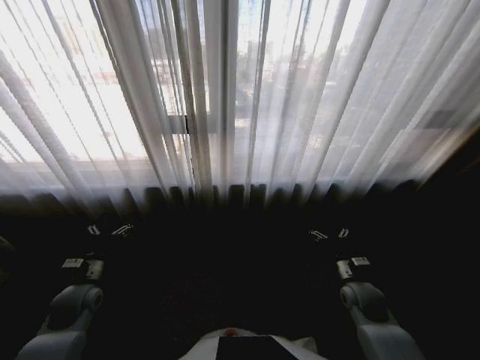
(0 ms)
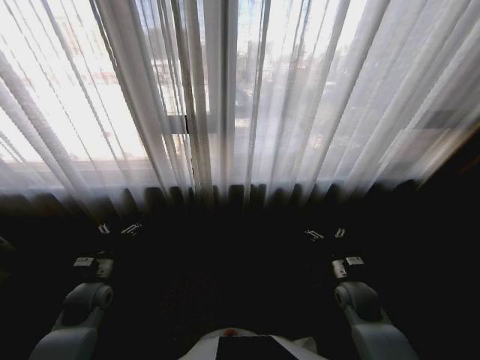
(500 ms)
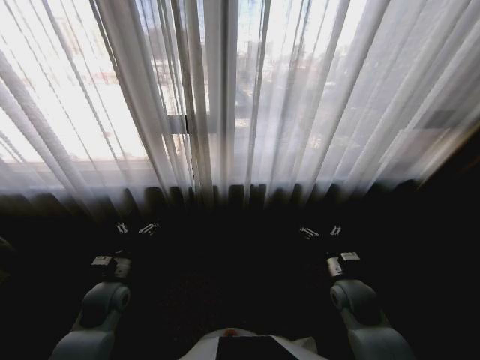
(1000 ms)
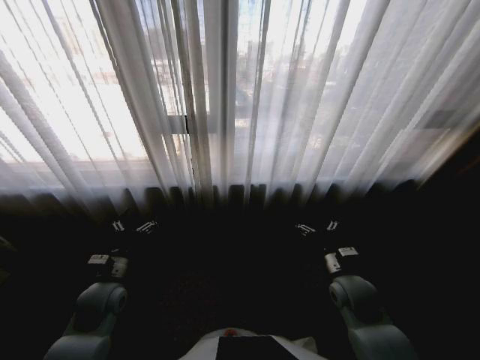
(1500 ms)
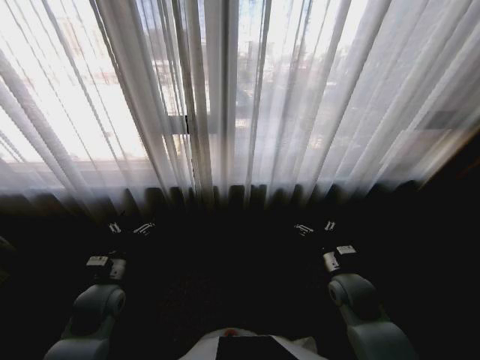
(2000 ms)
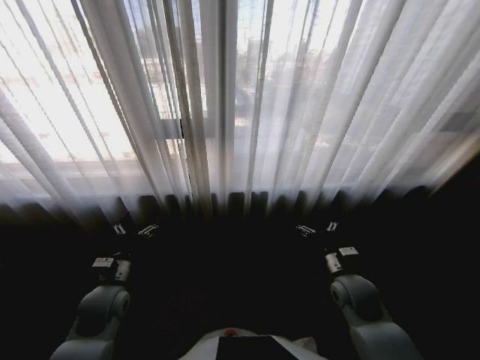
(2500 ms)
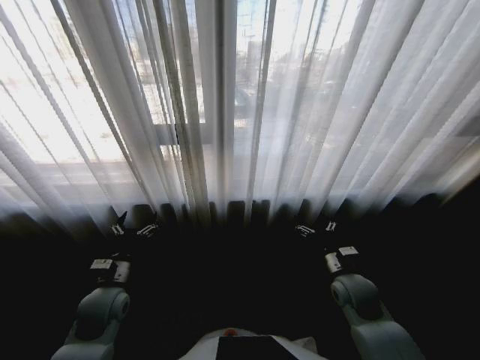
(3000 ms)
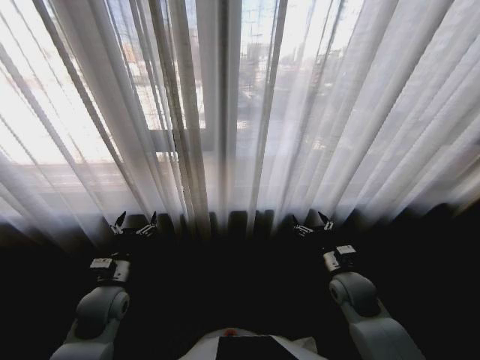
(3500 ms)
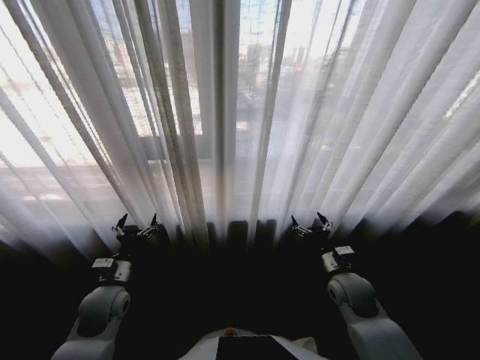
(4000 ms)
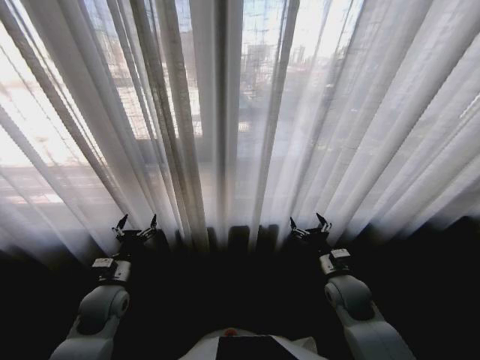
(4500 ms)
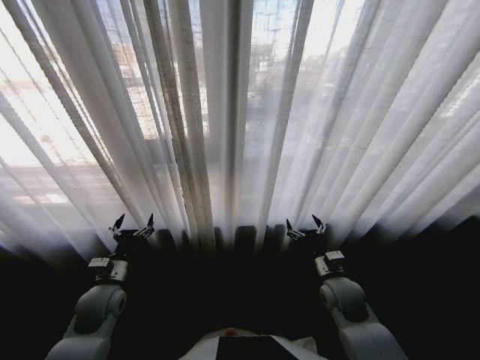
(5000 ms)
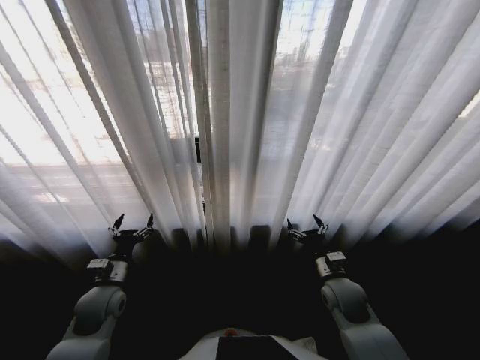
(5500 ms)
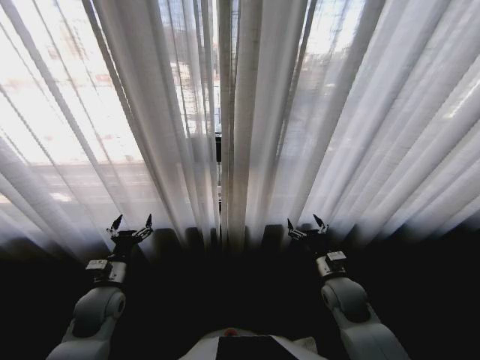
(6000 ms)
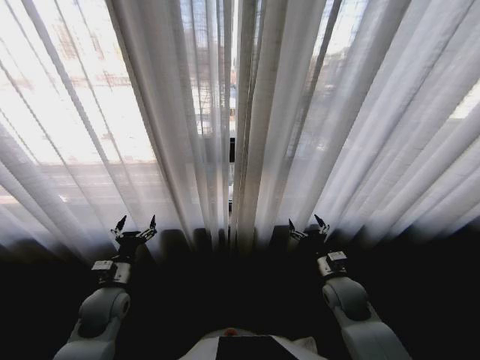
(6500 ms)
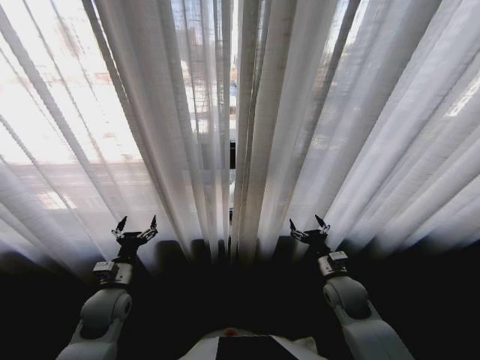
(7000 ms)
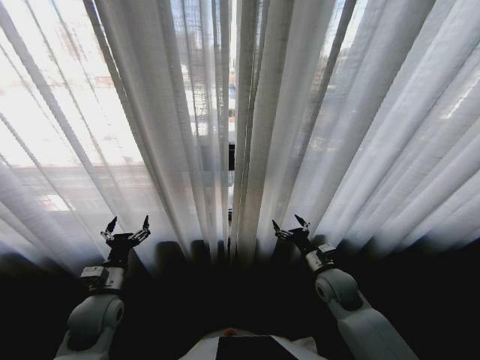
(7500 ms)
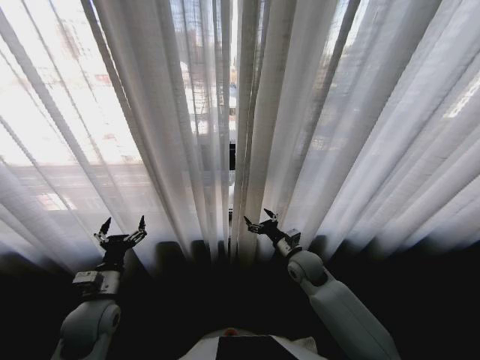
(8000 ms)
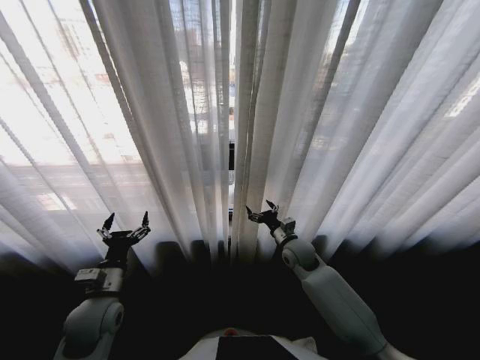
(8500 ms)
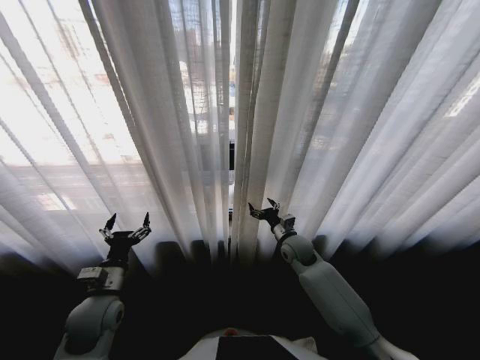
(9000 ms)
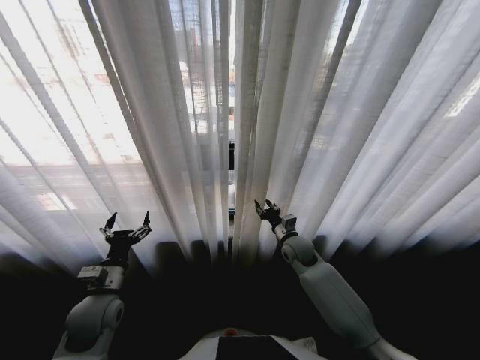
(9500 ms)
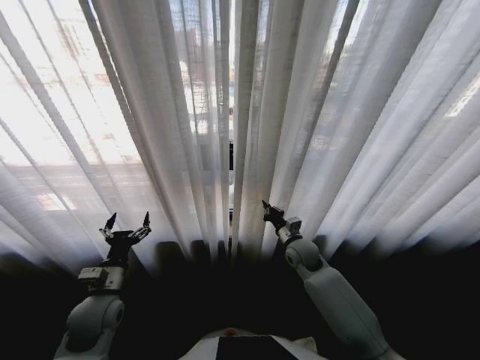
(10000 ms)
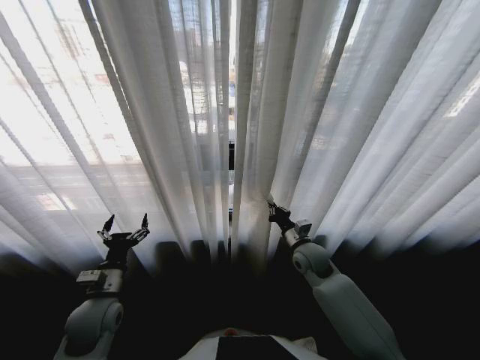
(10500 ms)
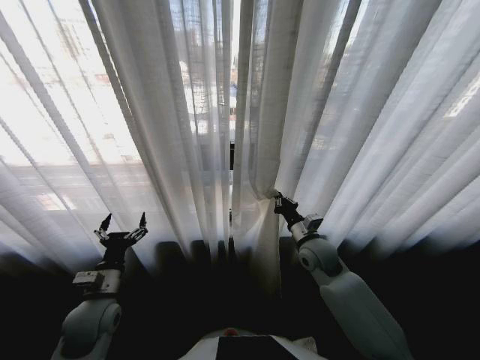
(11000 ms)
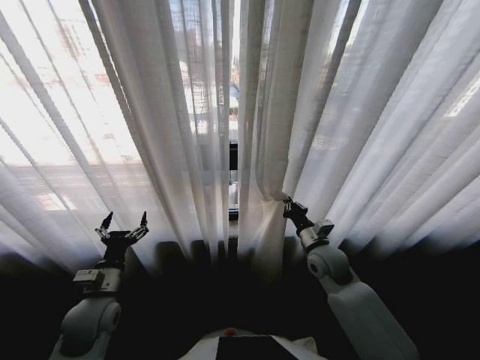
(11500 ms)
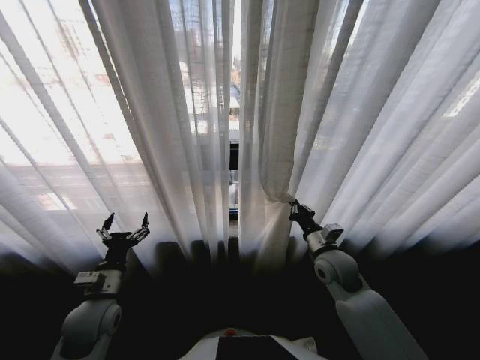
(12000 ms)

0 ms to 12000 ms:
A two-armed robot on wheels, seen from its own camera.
Task of the whole recording: Open the curtains by pulling them apart, changing their state from closed to fully open.
6000 ms to 8000 ms: The right gripper shifts some 10 cm forward and to the left.
8000 ms to 10000 ms: The right gripper closes up.
10000 ms to 12000 ms: The right gripper is displaced backward and upward by roughly 10 cm.

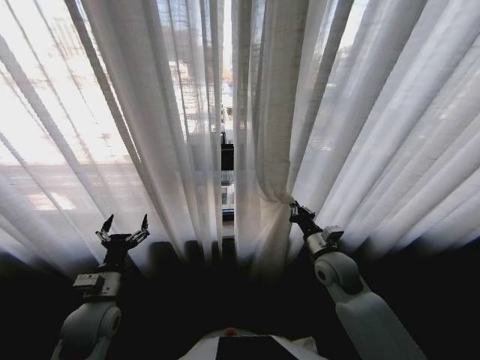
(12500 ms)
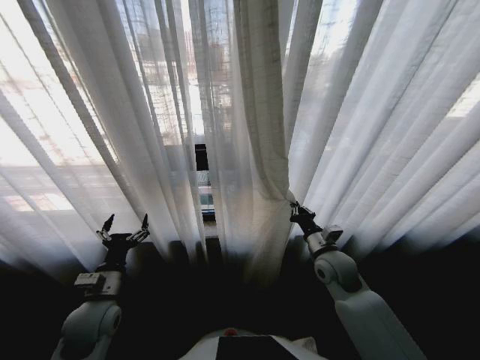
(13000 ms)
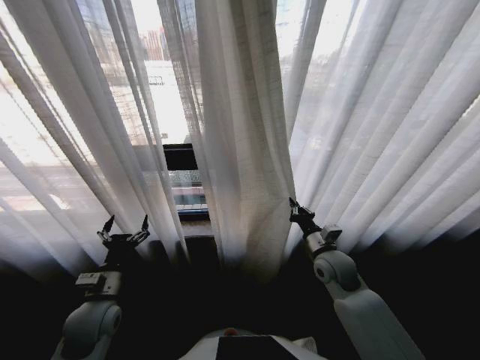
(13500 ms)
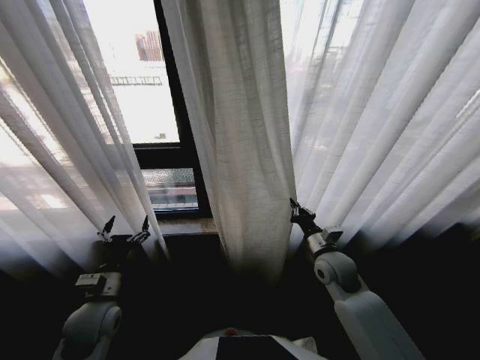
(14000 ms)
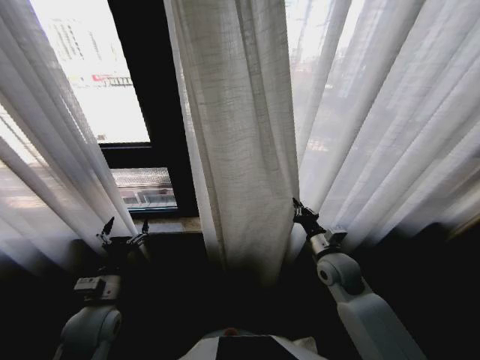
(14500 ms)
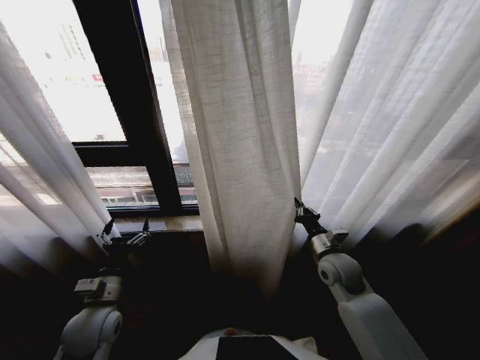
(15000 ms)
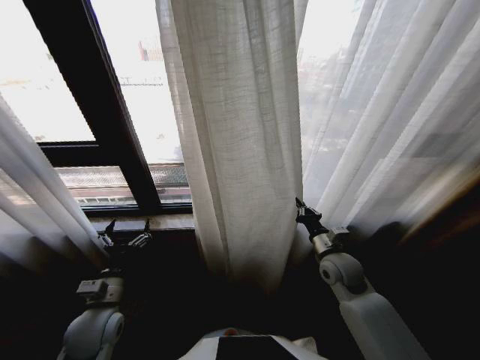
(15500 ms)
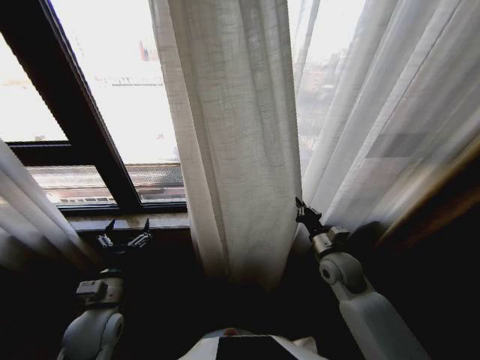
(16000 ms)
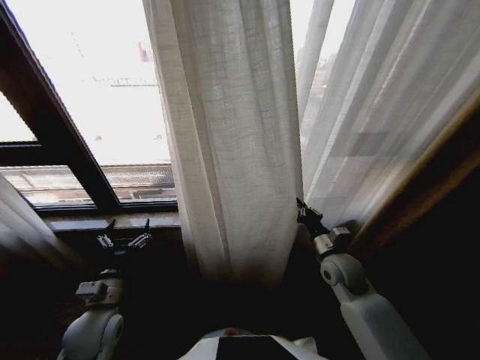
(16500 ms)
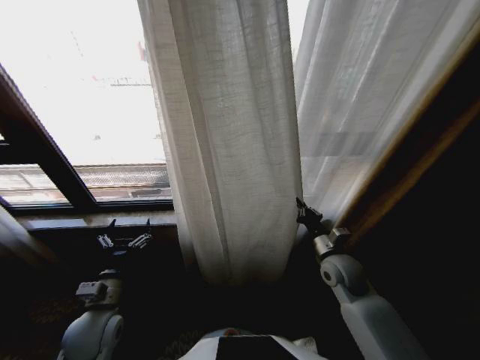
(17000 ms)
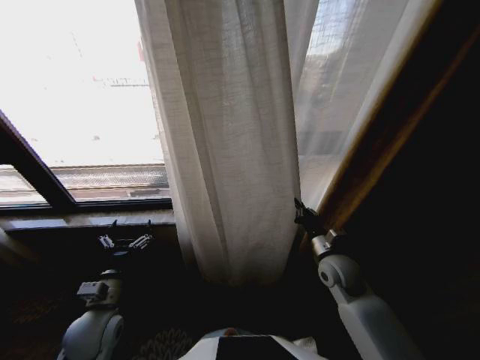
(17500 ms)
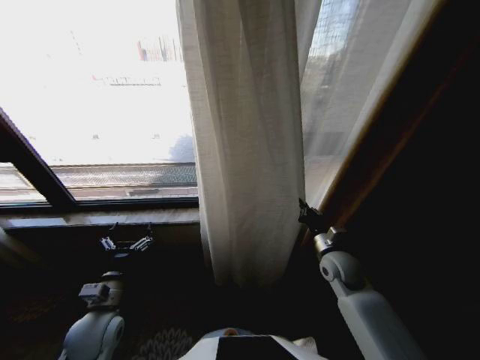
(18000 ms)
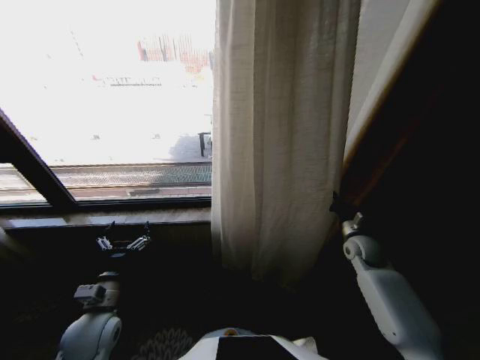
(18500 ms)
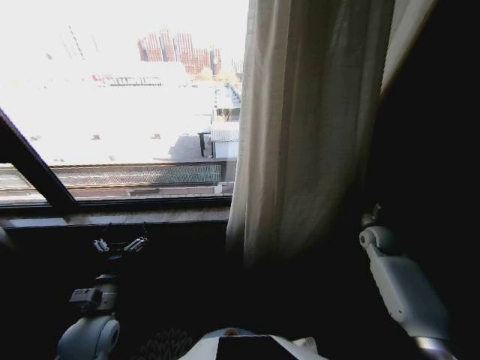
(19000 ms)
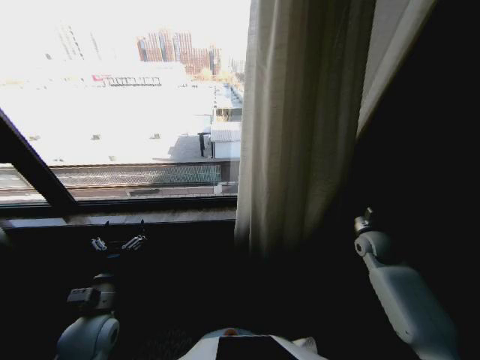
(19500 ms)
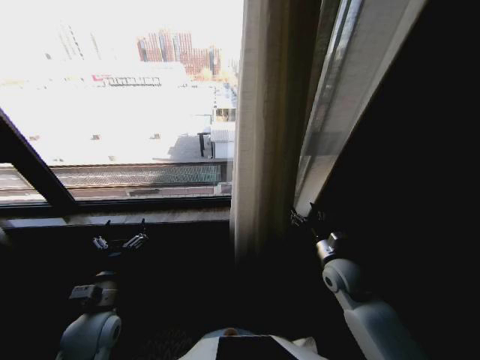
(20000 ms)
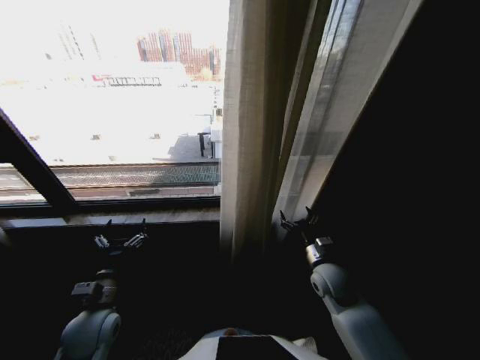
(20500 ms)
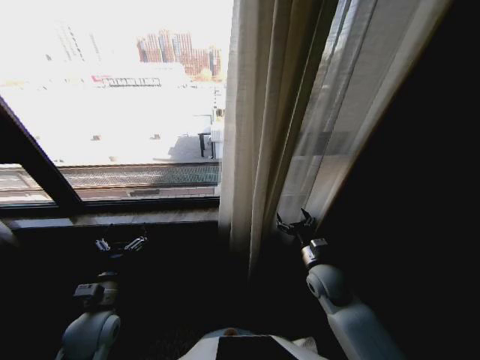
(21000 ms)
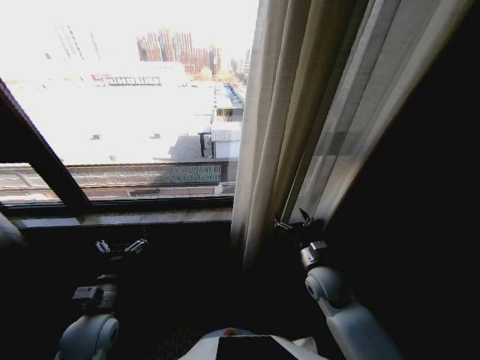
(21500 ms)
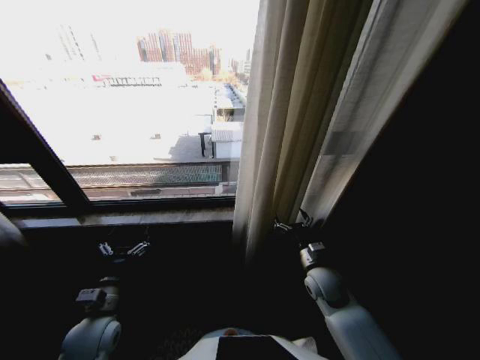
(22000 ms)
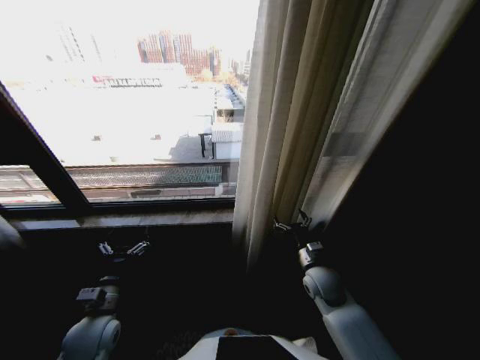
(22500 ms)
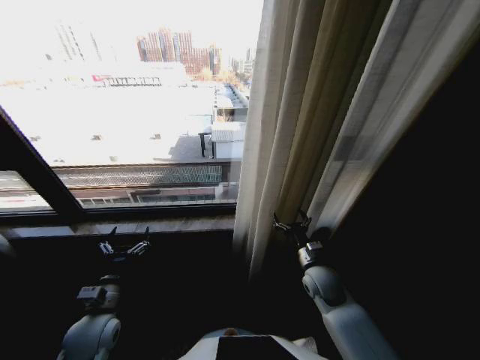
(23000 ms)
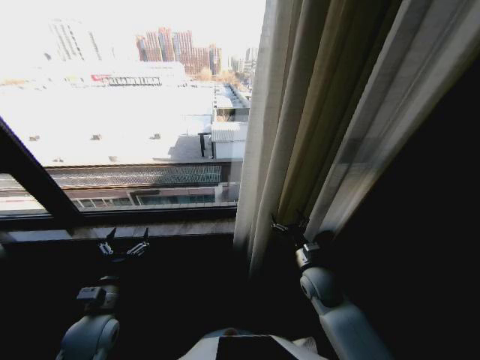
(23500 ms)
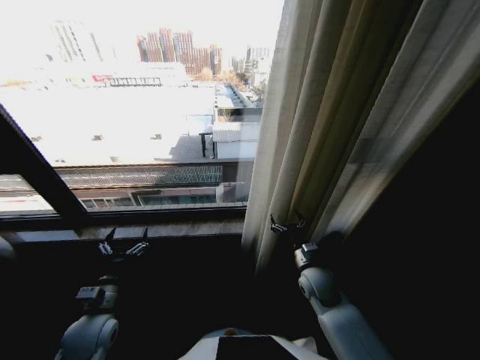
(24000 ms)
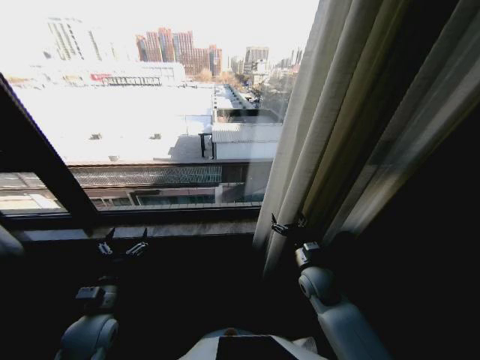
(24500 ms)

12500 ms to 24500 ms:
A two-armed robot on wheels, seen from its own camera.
Task of the whole recording: Open the curtains by pulling them apart, changing their state from closed to fully open.
16500 ms to 18500 ms: The right gripper travels to the right and forward by approximately 15 cm.
18500 ms to 20500 ms: The right gripper is displaced to the left and backward by about 15 cm, and opens its fingers.

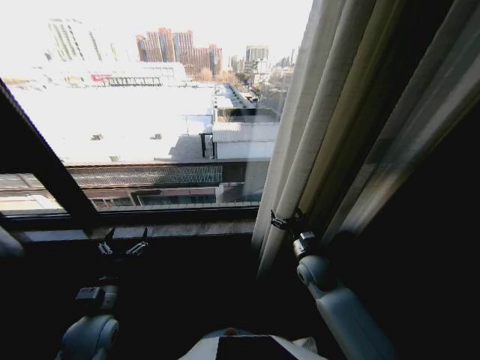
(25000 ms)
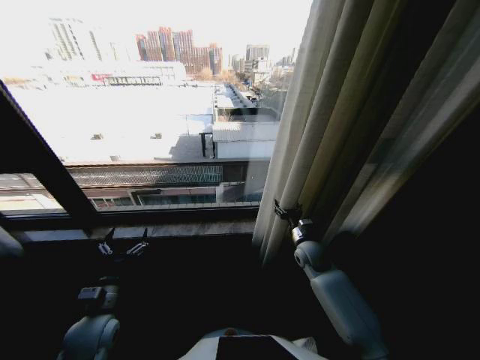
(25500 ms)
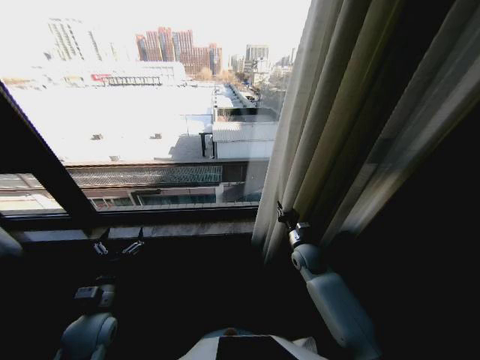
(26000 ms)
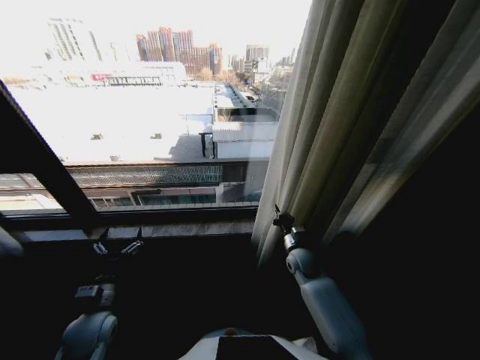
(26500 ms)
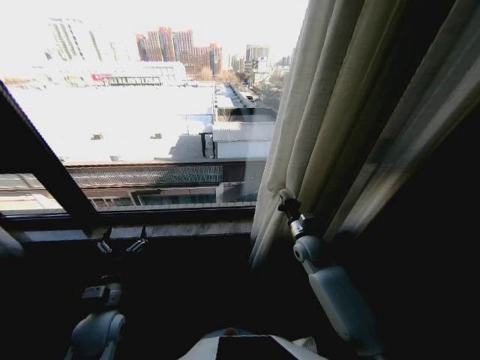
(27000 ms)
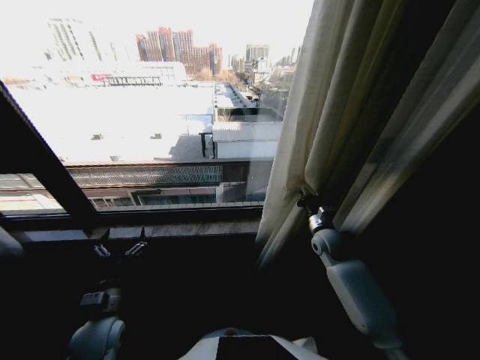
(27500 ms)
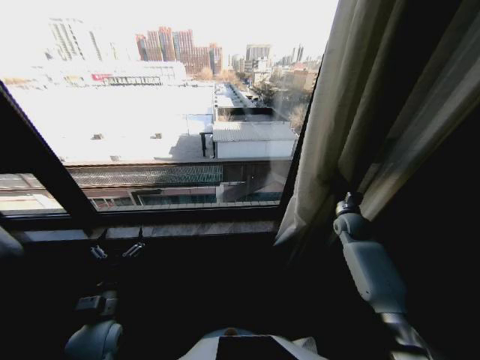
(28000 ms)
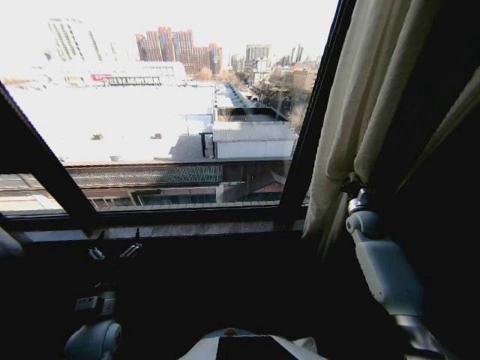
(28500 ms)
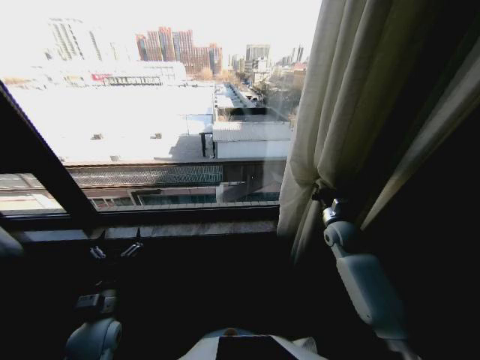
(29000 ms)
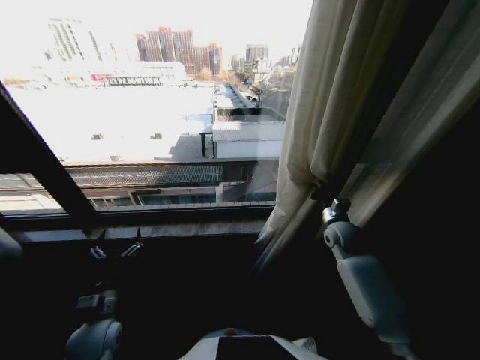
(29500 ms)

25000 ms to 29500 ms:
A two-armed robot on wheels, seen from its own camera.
Task of the whole recording: Open the curtains by pulling them apart, changing their state from closed to fully open.
25000 ms to 27000 ms: The right gripper travels forward by about 5 cm, and closes up.
27000 ms to 29500 ms: The right gripper is displaced to the right by roughly 10 cm.
